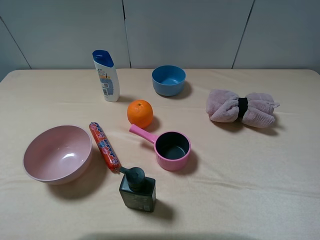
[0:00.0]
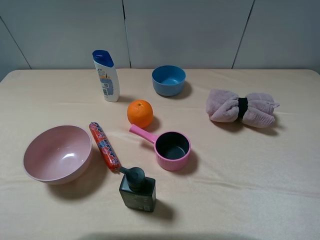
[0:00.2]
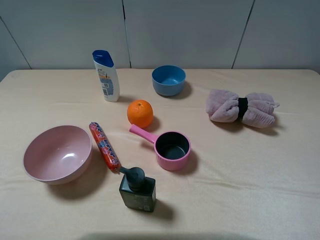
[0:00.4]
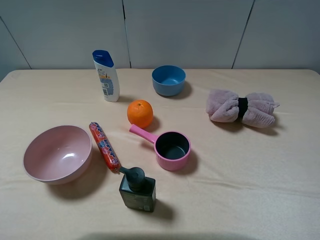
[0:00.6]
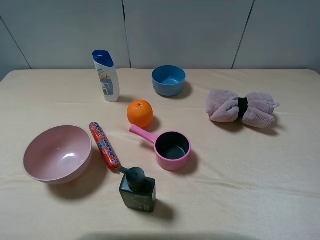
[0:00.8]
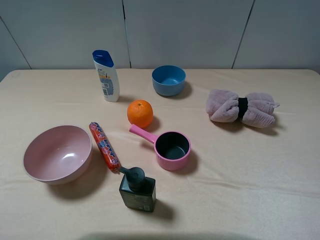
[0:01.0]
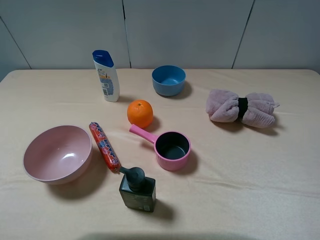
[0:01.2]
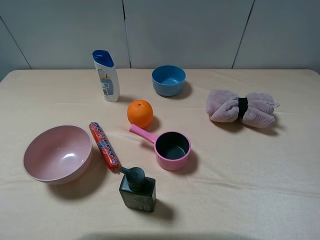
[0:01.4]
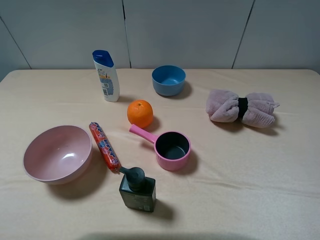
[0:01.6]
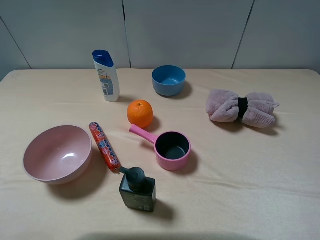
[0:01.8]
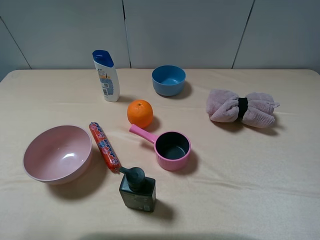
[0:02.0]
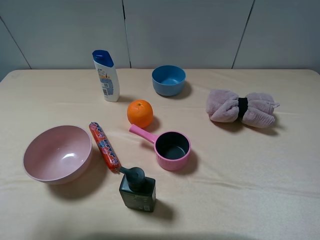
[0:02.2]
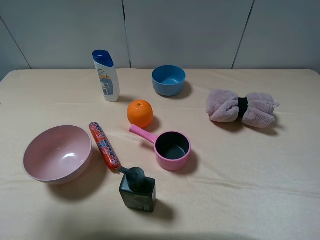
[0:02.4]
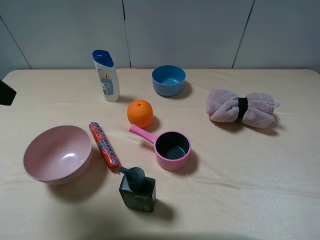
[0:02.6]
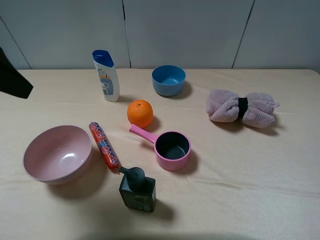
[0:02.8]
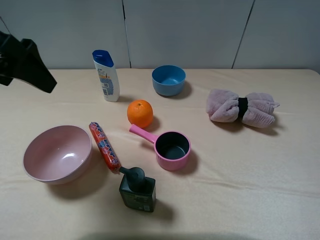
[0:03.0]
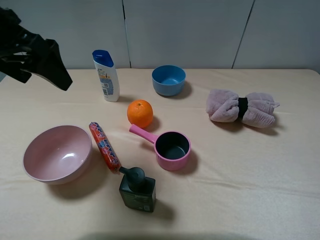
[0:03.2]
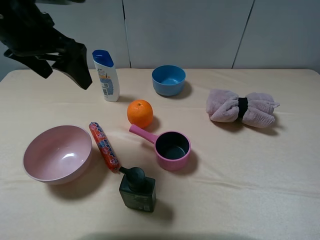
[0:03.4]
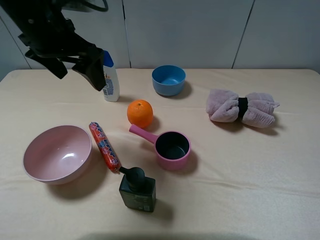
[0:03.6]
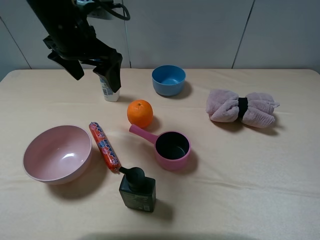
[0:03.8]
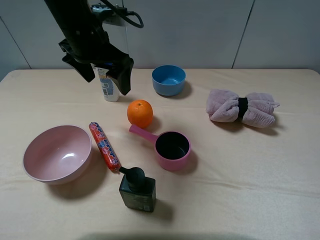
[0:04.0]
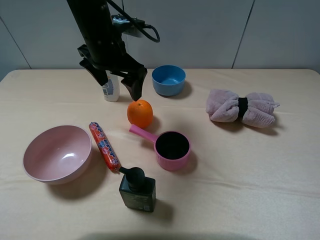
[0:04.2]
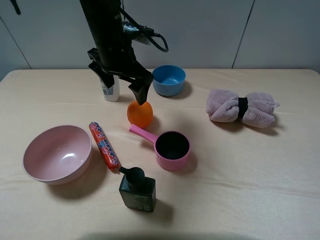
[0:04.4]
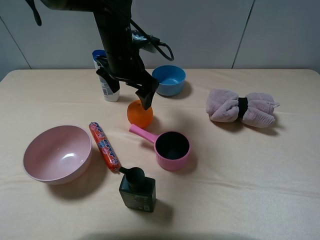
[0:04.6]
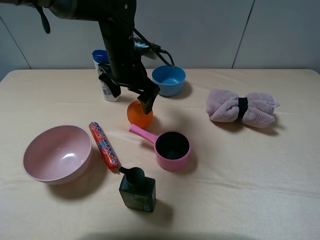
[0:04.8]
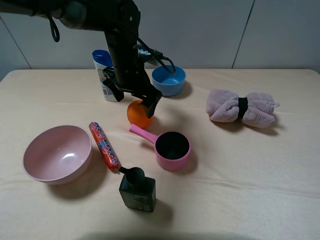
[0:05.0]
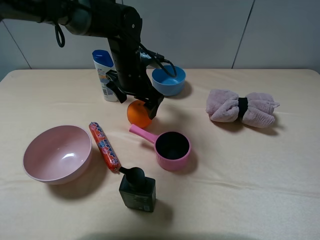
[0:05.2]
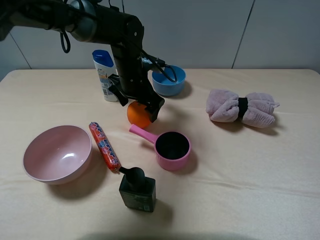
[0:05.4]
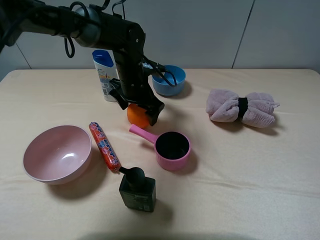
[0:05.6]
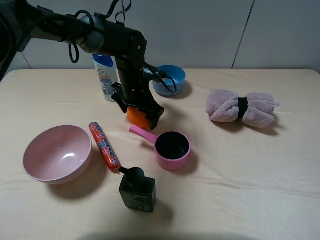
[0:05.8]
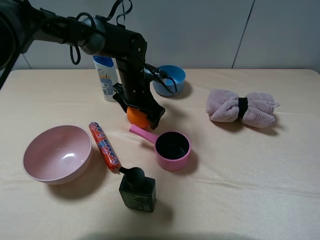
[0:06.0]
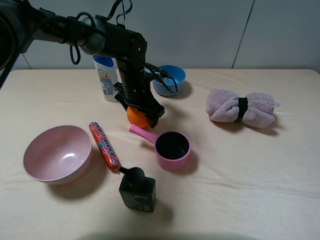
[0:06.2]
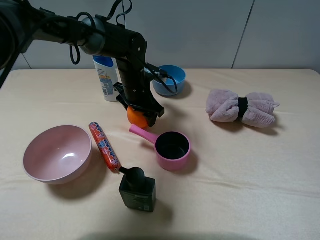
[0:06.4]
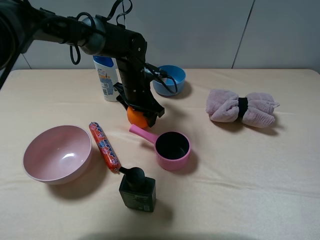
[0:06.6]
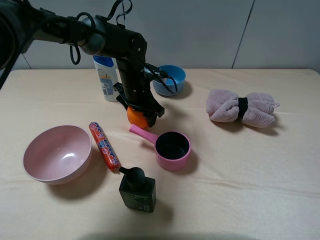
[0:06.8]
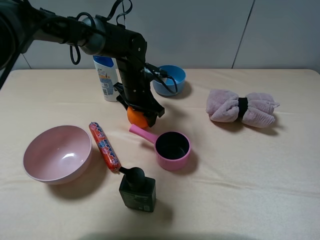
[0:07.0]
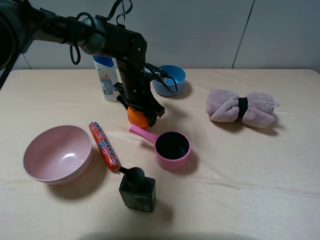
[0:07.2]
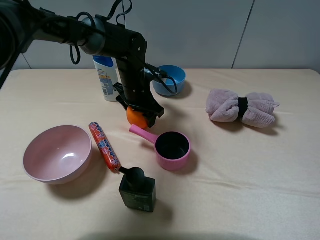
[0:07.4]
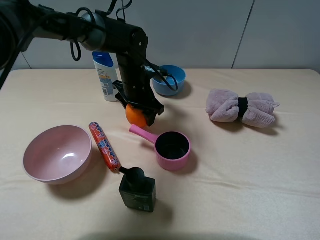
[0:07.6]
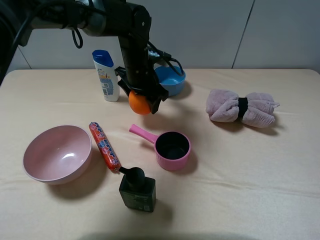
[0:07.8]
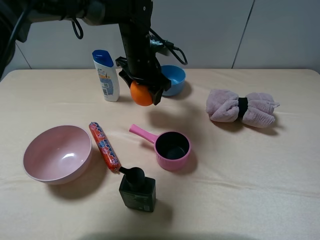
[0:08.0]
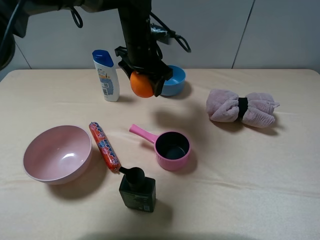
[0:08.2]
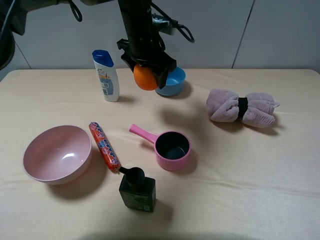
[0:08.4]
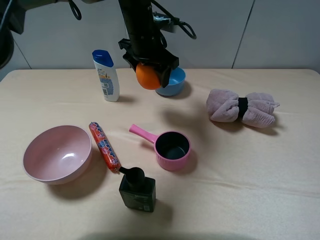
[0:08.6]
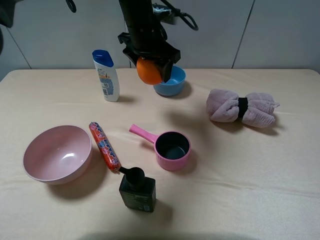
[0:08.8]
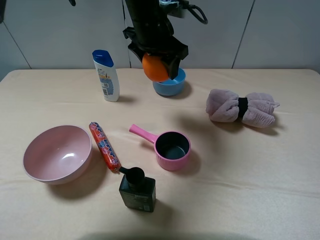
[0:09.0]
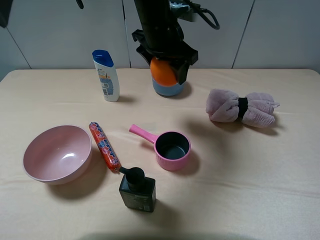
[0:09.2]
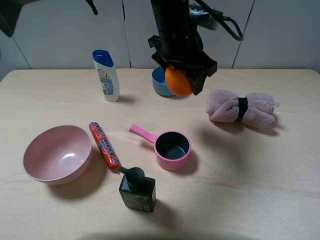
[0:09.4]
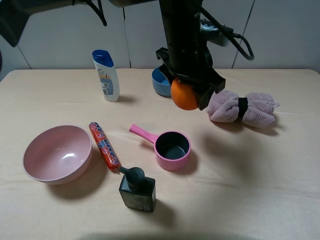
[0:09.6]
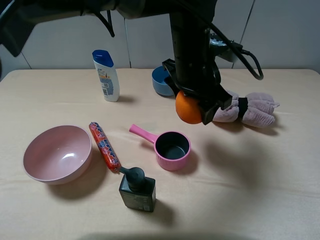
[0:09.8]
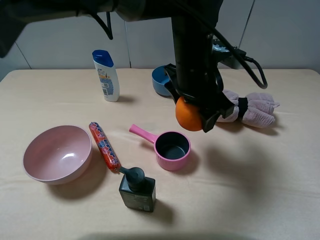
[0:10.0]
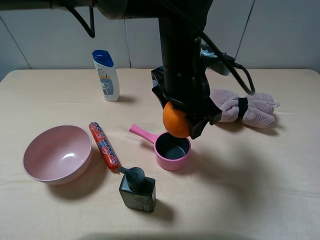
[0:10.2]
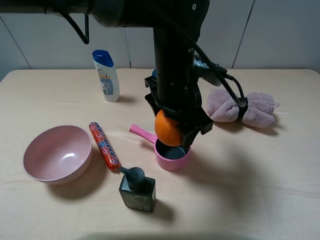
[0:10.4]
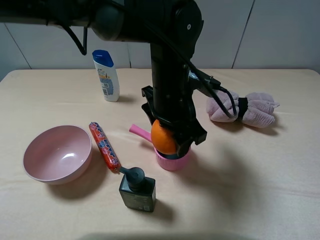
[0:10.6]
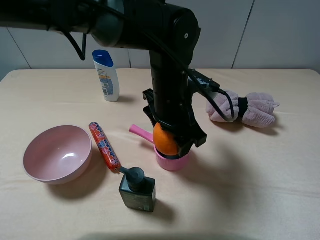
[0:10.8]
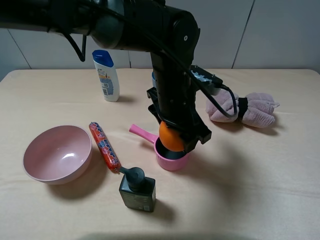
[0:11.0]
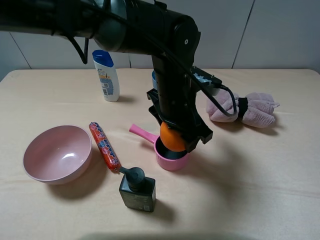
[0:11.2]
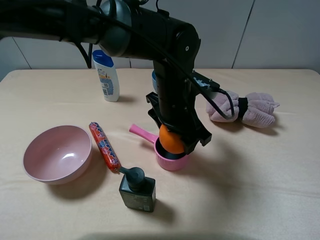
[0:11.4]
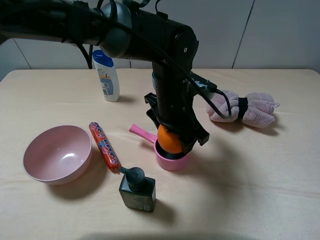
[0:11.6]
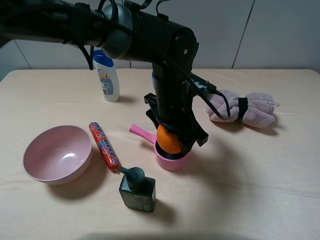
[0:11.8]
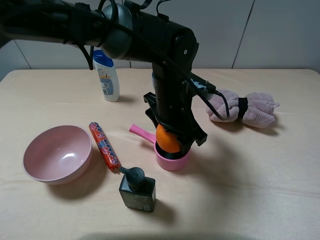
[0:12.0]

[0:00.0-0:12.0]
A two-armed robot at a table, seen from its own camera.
Task of the whole recording: pick up an item with a gripper and place it in a random container on the table.
Step, 0:00.0 to 0:07.2: Grasp the orange with the left gripper.
0:01.6 to 0:03.0: The left gripper goes about 20 cm forward.
0:03.0 to 0:04.4: The left gripper heads to the right, forward and downward, covering roughly 25 cm.
0:04.4 to 0:06.0: The left gripper goes some 10 cm downward.
0:06.0 to 0:07.6: The left gripper closes its fingers.
0:07.6 to 0:09.0: The left gripper heads upward, covering roughly 15 cm.
0:09.0 to 0:10.4: The left gripper goes some 10 cm backward.
0:10.4 to 0:12.0: The left gripper goes about 5 cm downward.

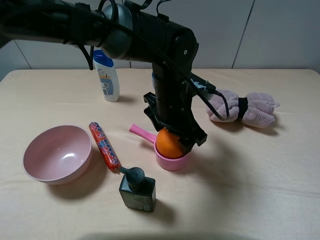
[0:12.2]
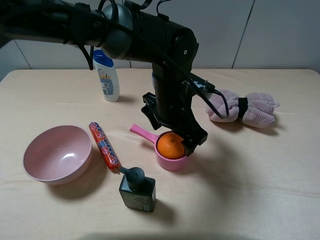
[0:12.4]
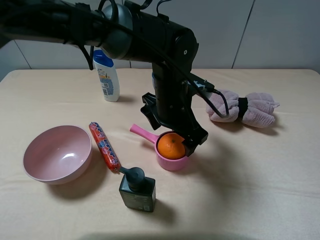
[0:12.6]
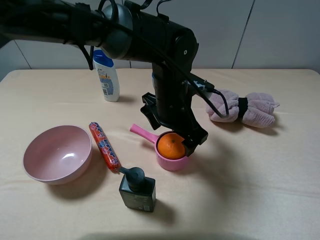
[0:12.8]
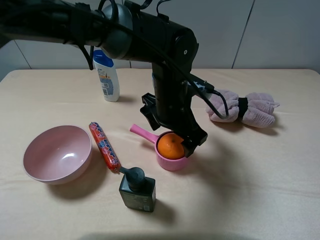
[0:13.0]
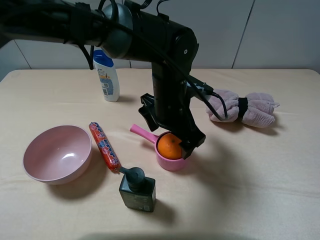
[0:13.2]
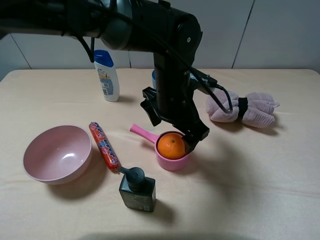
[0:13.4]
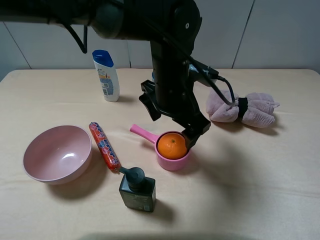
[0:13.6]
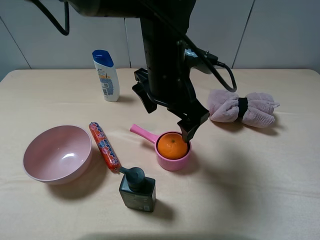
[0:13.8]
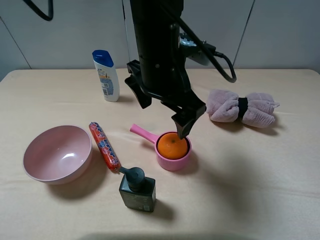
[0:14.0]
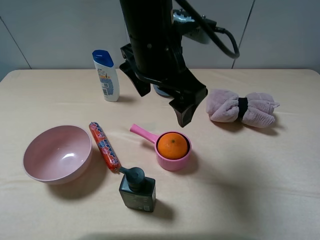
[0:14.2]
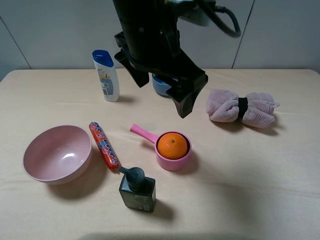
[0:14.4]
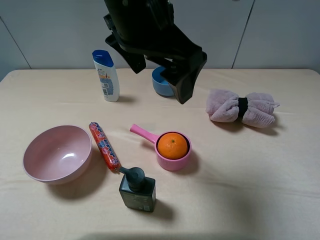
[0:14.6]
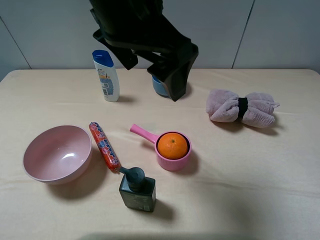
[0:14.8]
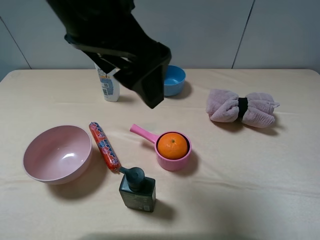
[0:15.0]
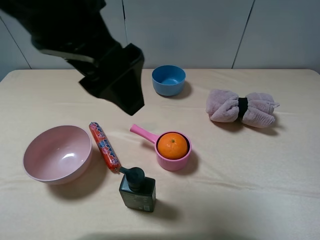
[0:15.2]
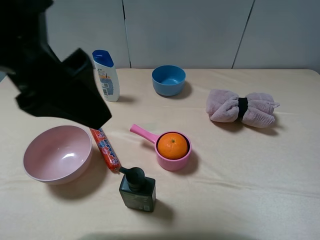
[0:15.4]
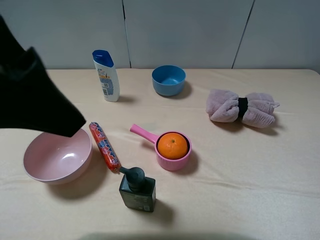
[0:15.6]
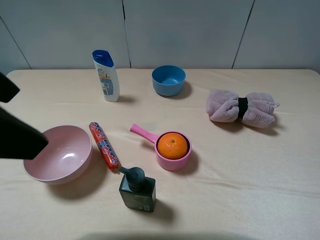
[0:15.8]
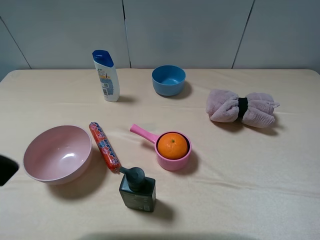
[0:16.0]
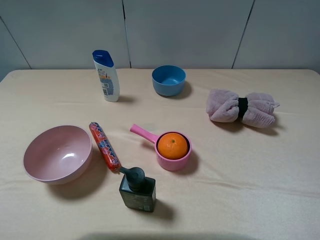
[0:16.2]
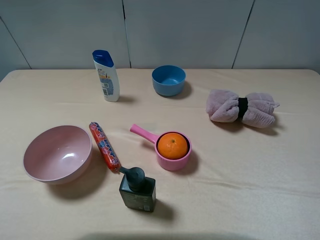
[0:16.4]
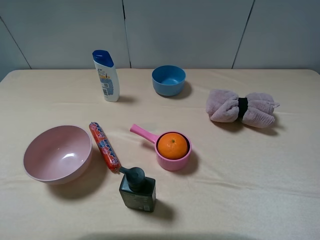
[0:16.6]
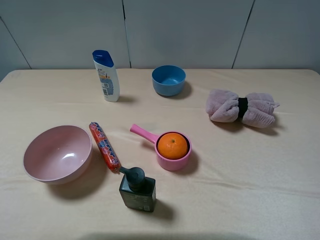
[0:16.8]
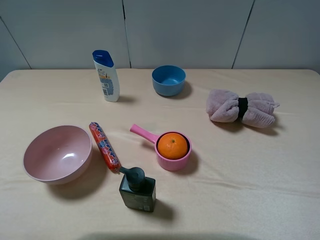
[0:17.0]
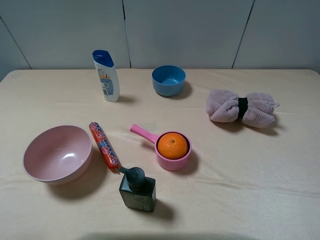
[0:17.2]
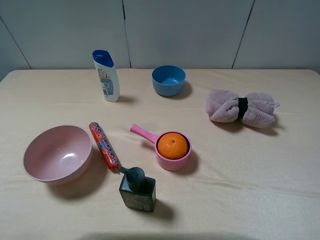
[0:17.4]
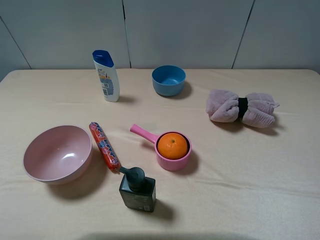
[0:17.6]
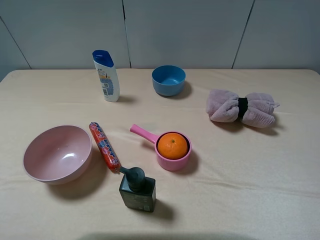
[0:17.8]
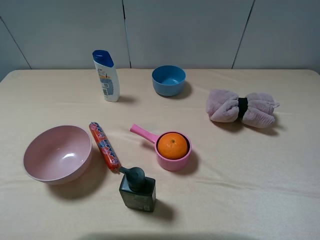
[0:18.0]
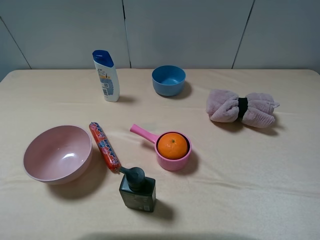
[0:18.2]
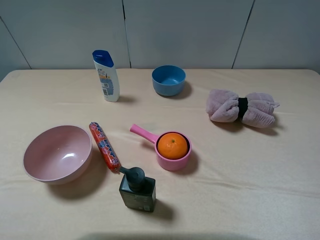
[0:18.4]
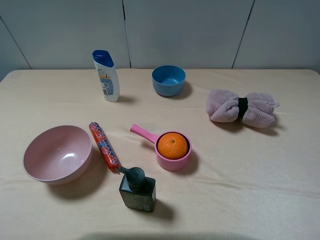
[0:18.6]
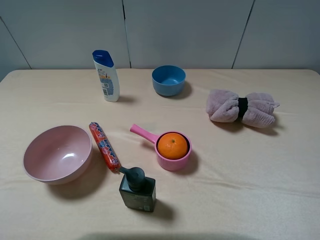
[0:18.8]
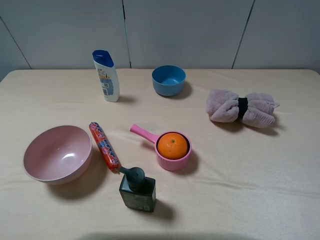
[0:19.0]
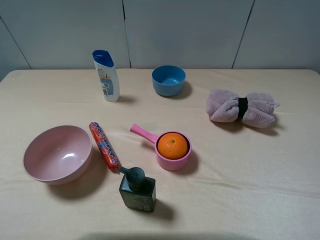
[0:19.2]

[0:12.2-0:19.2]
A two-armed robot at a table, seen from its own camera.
Task of the whole recording: pick up an item with a gripper and place it in a random container on the table.
0:12.2 to 0:13.6: The left gripper opens its fingers.
0:13.6 to 0:15.0: The left gripper goes some 20 cm upward, to the left and backward.
0:15.0 to 0:16.4: The left gripper travels to the left and backward by approximately 25 cm.
0:17.8 to 0:19.2: Both grippers stay put.
